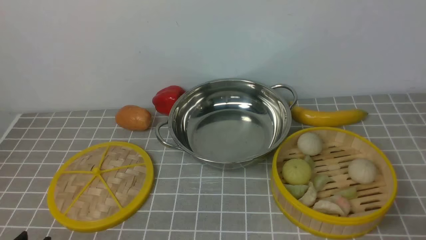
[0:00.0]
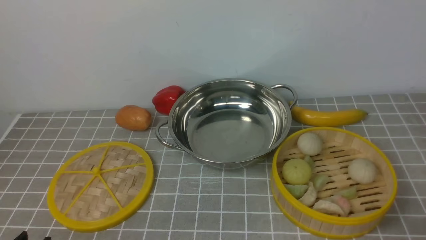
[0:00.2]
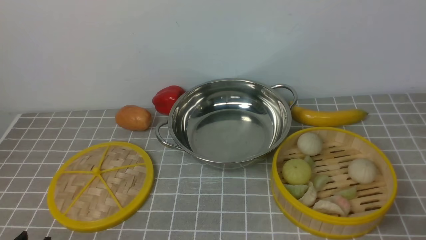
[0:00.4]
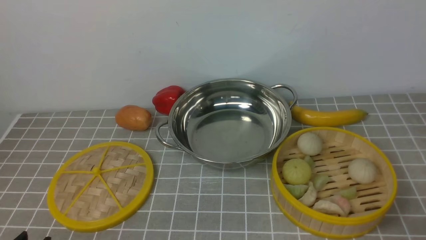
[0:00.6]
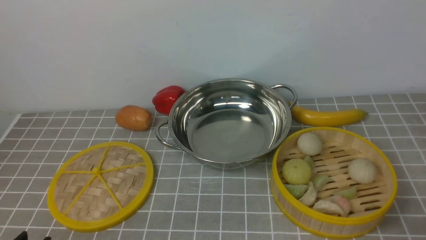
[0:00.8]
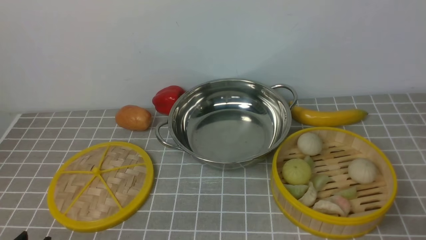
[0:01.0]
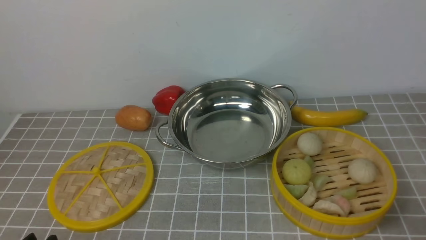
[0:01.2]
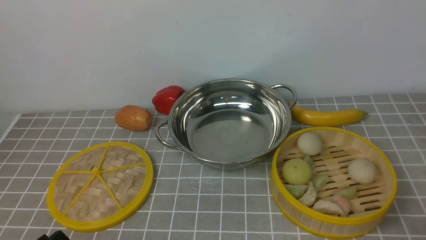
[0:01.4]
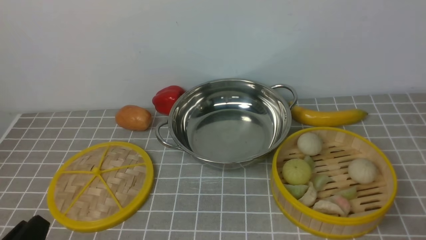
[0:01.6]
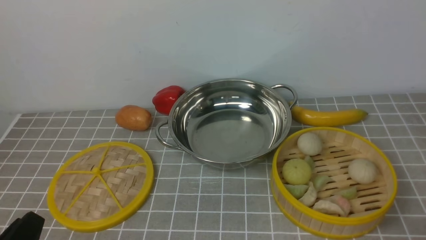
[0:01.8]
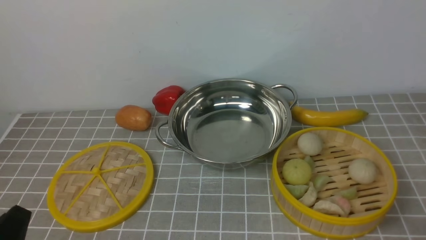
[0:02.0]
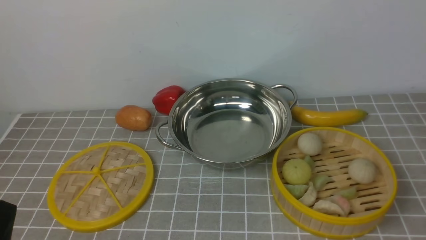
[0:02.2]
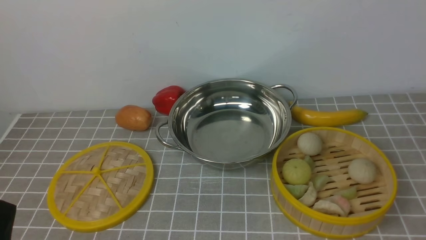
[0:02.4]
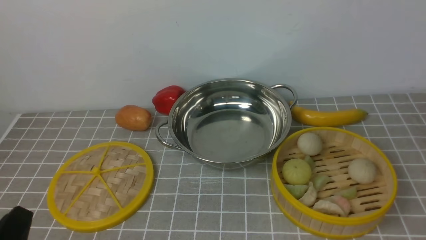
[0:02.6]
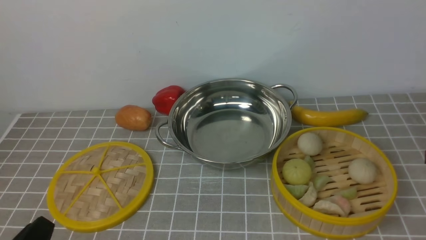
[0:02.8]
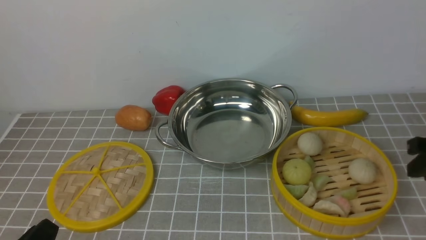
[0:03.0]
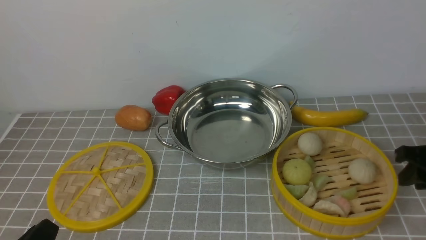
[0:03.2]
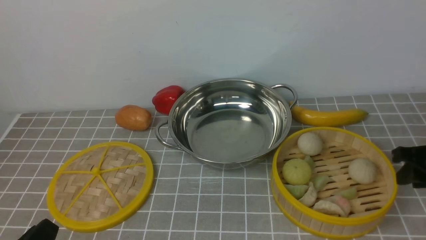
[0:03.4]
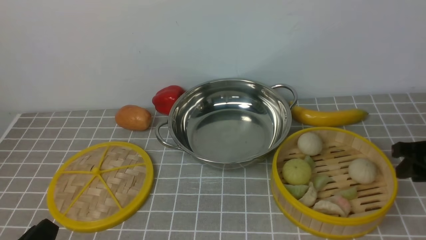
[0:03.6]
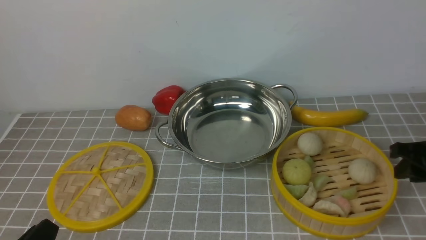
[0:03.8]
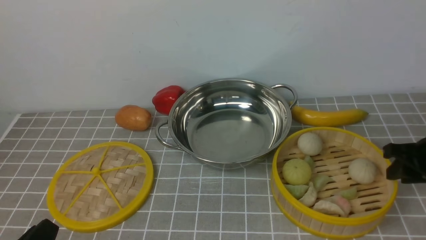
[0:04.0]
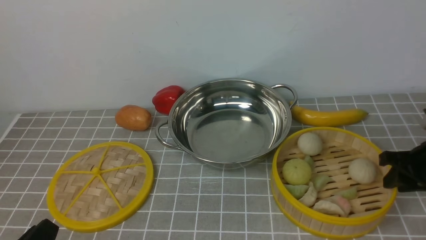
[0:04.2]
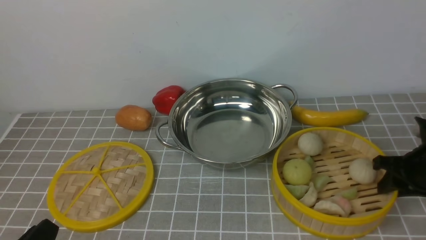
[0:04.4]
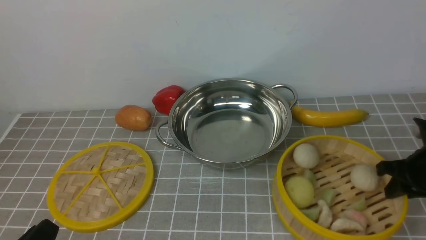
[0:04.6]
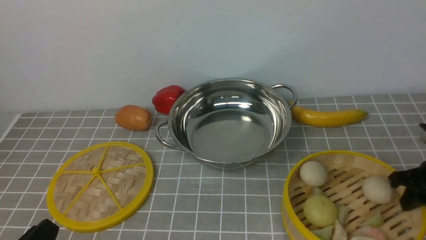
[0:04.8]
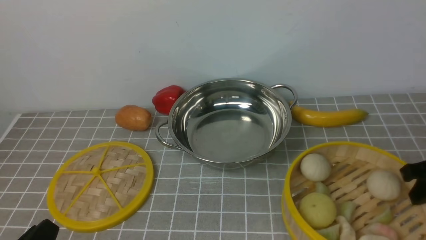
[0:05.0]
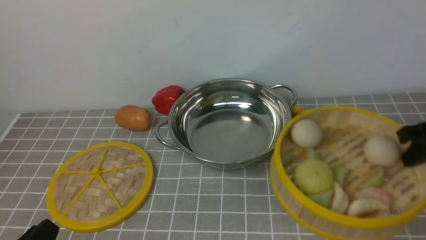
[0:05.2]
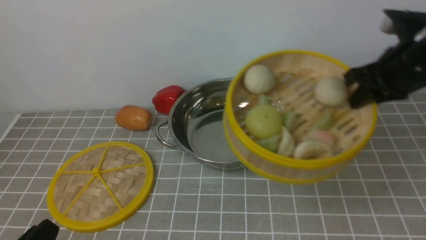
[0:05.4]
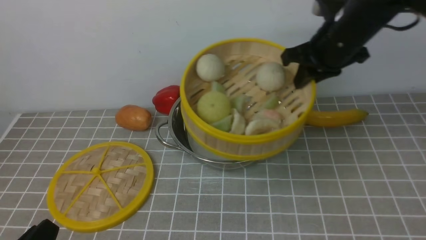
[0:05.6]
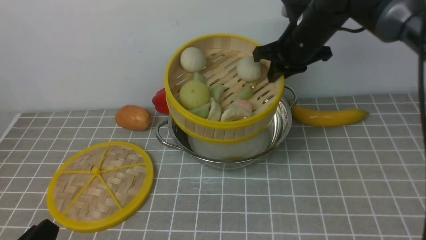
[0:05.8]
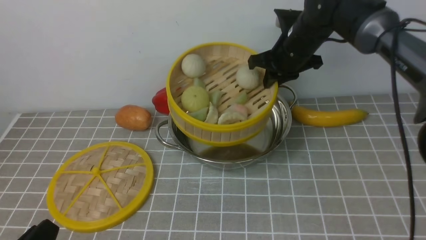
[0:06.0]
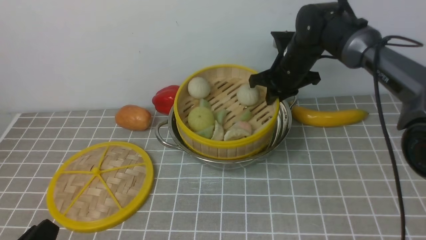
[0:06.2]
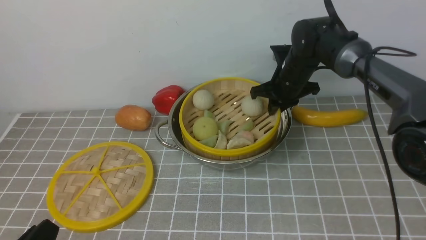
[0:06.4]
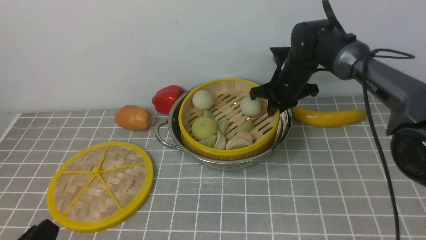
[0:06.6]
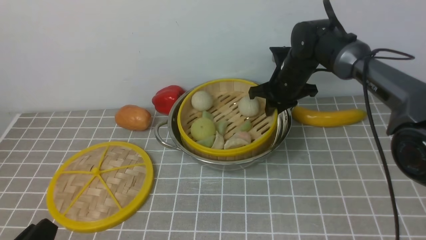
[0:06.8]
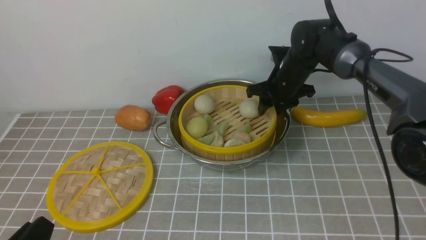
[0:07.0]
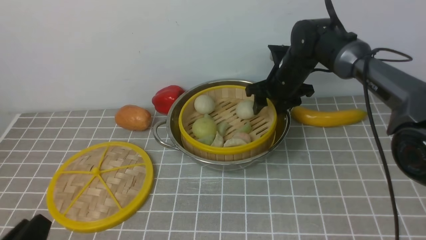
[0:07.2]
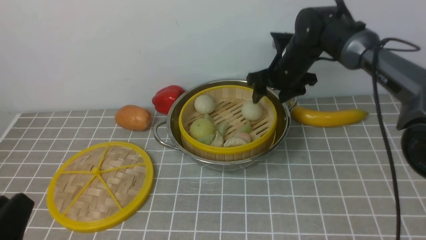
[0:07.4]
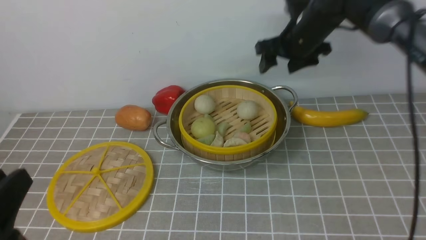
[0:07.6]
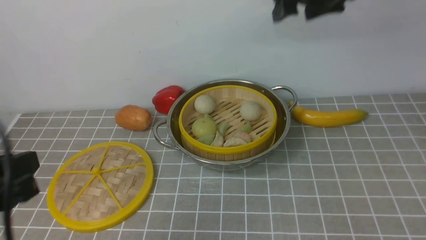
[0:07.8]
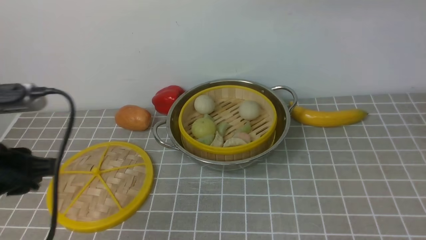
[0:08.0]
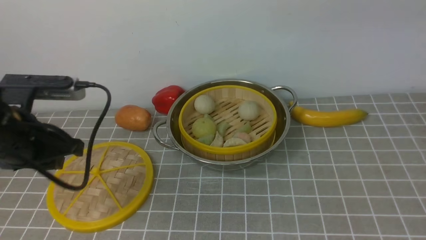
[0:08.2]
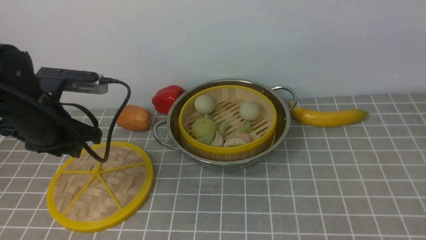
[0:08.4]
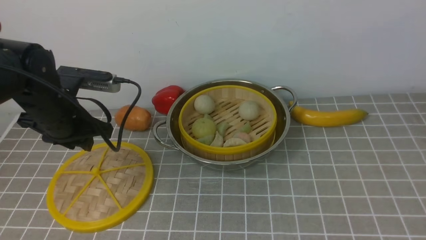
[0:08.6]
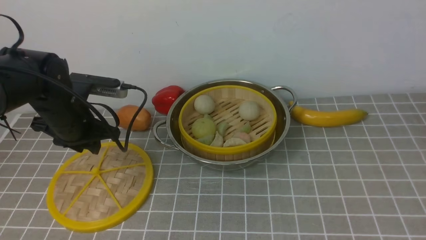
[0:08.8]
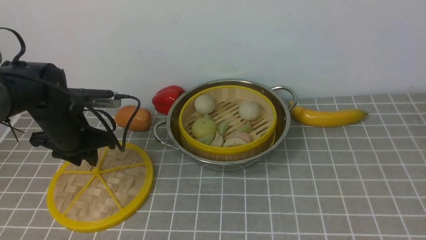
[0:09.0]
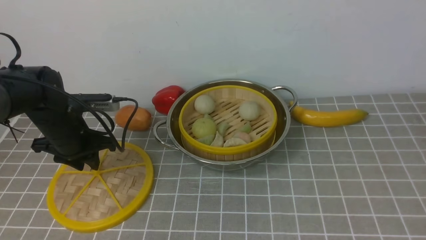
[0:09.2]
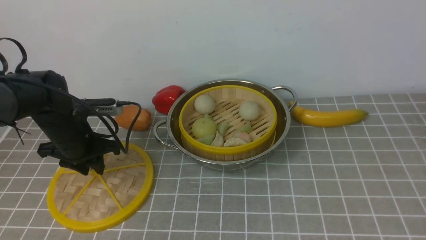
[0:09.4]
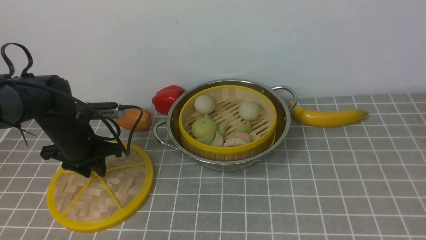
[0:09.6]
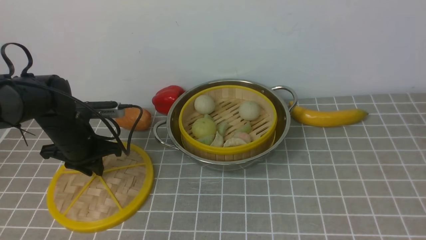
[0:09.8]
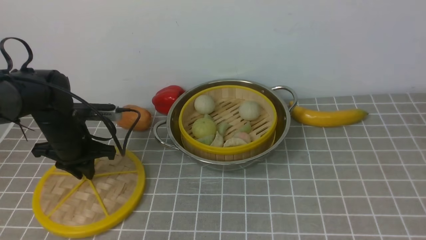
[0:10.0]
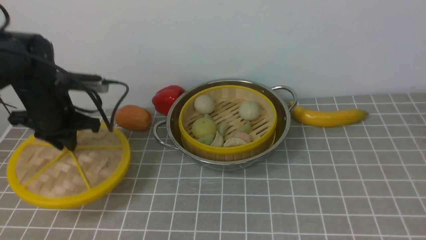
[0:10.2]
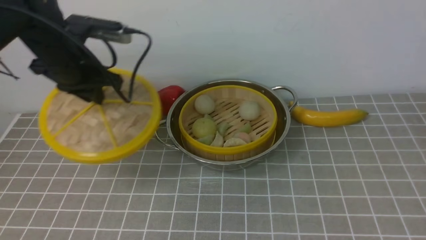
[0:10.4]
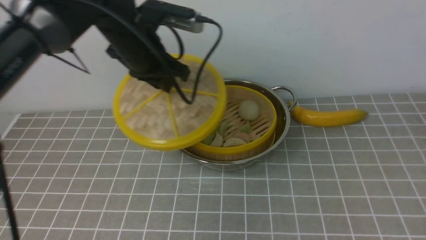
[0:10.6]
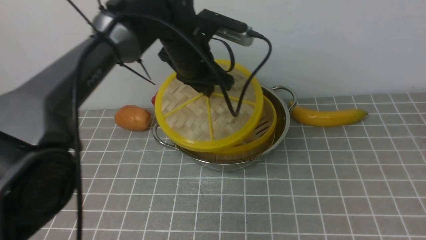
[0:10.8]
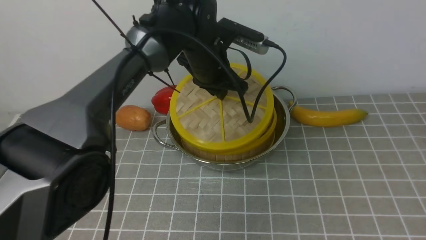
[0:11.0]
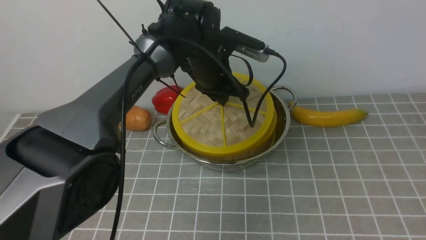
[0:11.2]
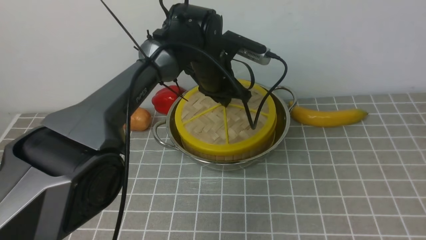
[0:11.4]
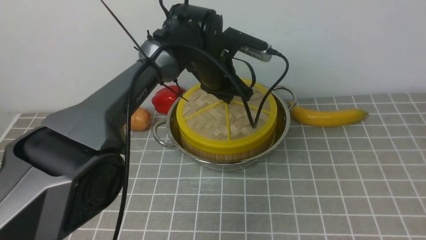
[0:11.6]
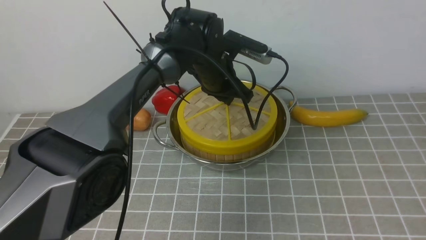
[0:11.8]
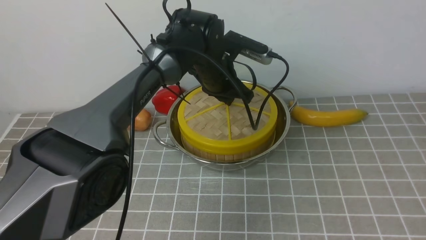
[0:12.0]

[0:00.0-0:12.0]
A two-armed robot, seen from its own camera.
Task of the whole recording: place the steamer in the pot on the grey tablecloth, and put the lid on the steamer.
Step, 0:00.0 to 0:04.8: use the right arm to lift the steamer closest to it.
Step, 0:05.0 to 0:07.2: use the right arm to put the steamer into the iron steamer pot in the middle.
Step, 0:07.6 to 0:10.0: use the left arm to lift the lid of the steamer.
0:01.6 to 0:03.0: The right gripper goes roughly 20 cm forward.
0:03.0 to 0:04.4: The right gripper shifts approximately 10 cm downward and forward.
0:04.4 to 0:06.0: The right gripper heads to the left, forward and upward, covering some 30 cm.
0:06.0 to 0:07.6: The left gripper is displaced upward by about 10 cm. The right gripper is displaced upward by some 5 cm, and opens its fingers.
0:07.6 to 0:09.0: The left gripper is displaced forward by approximately 30 cm; the right gripper is displaced backward by roughly 50 cm.
0:09.0 to 0:10.4: The left gripper shifts about 10 cm upward and to the right, and closes.
0:10.4 to 0:12.0: The left gripper goes approximately 20 cm to the right.

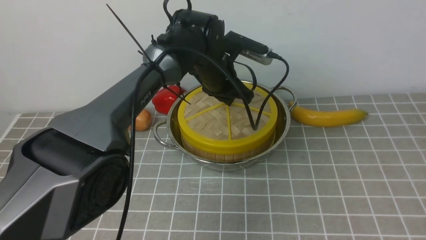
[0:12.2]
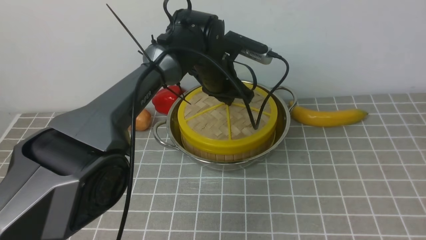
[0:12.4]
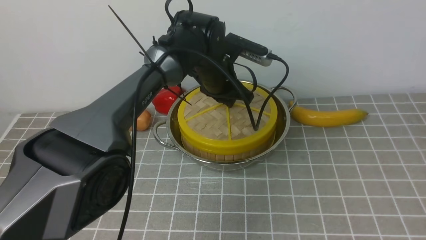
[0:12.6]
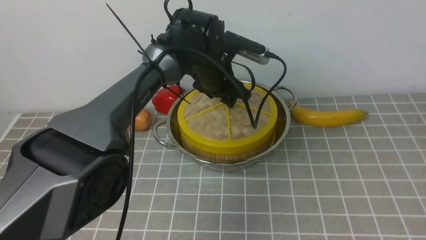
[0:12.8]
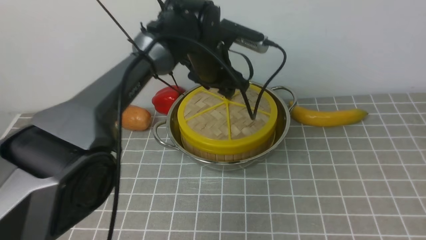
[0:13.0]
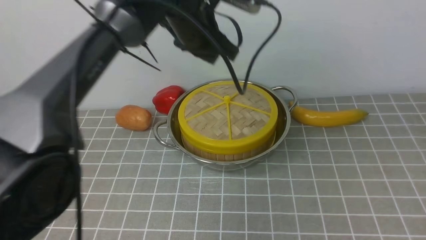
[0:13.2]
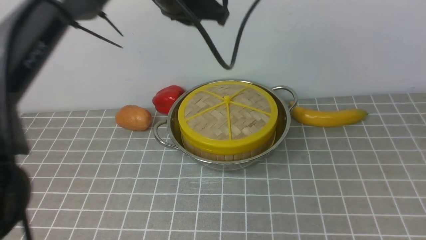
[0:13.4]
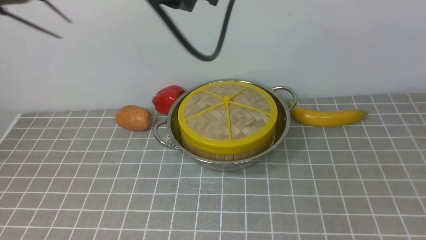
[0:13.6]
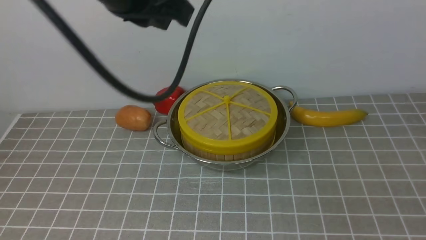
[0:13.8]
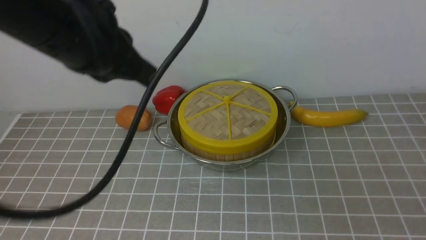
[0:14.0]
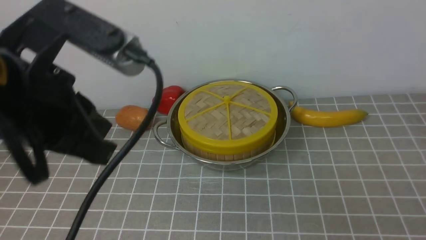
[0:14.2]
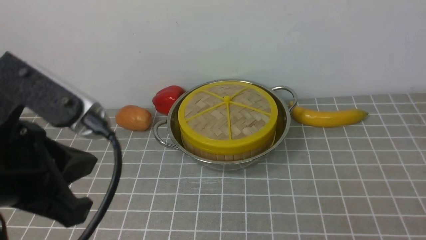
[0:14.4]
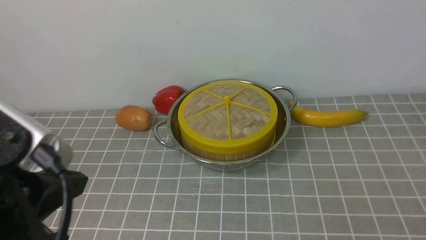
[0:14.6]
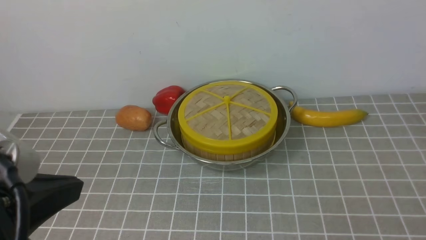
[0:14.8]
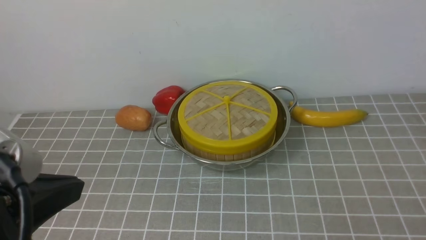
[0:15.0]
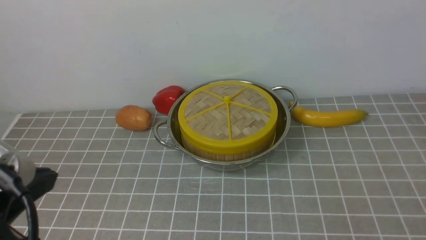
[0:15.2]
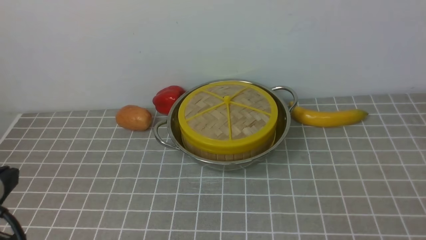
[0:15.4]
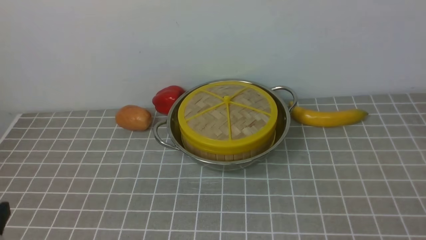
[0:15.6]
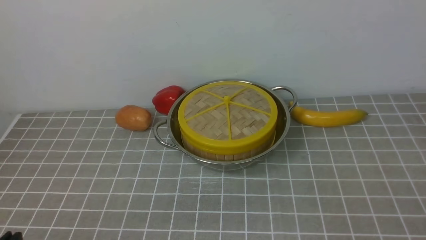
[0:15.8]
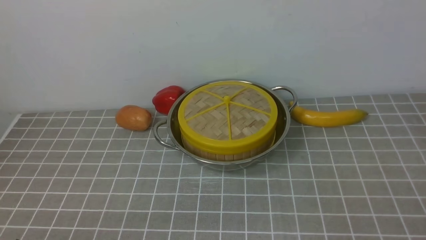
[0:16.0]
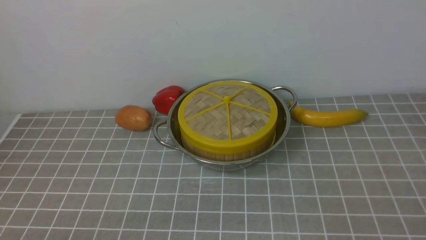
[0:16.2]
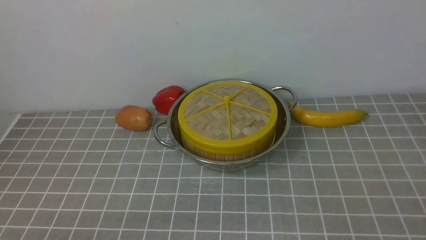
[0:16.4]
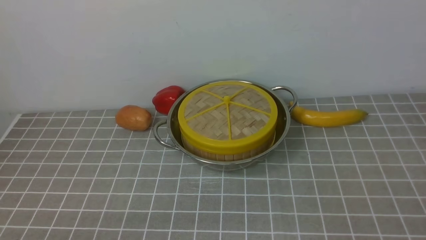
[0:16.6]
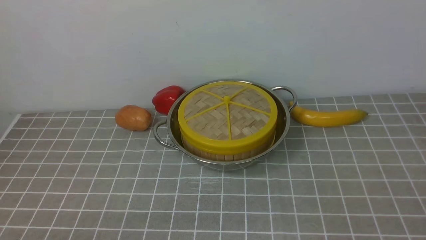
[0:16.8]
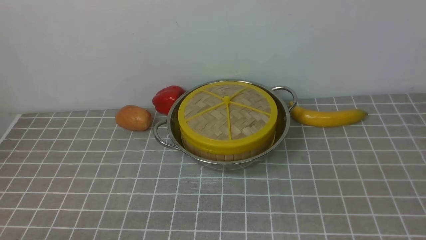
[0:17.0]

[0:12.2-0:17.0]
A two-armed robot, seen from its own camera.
Task of the whole recording: place the steamer in the pot on the grey tablecloth, and put the lid on the steamer.
0:12.2 to 0:13.8: The right gripper travels downward, backward and to the right by some 10 cm, and closes up; the left gripper heads upward, backward and to the left, covering roughly 30 cm, and closes up.
0:13.8 to 0:15.4: The left gripper moves backward, downward and to the left, some 30 cm; the right gripper travels downward by about 5 cm.
0:15.4 to 0:17.0: The left gripper is displaced downward by roughly 15 cm.
